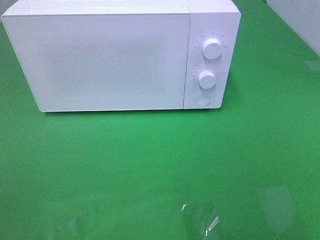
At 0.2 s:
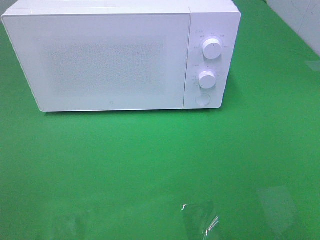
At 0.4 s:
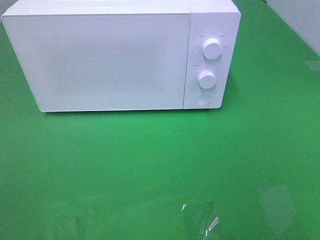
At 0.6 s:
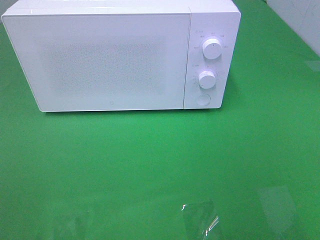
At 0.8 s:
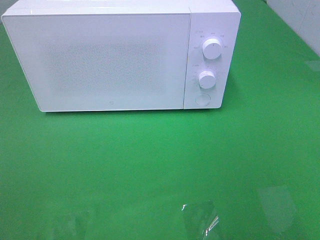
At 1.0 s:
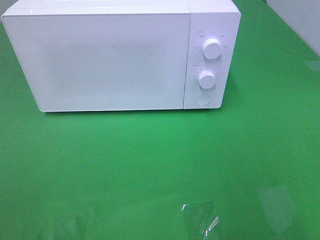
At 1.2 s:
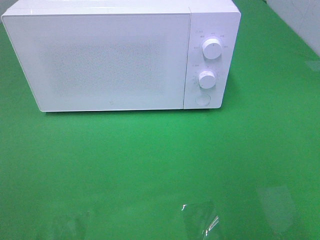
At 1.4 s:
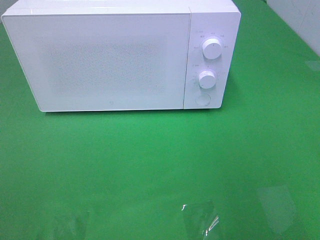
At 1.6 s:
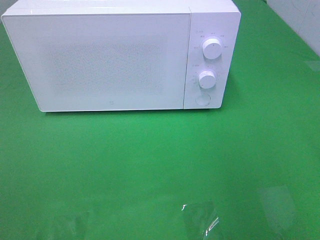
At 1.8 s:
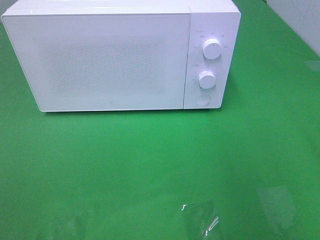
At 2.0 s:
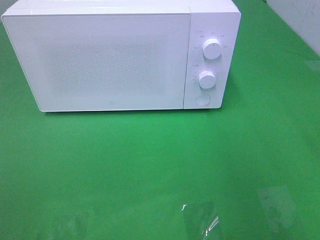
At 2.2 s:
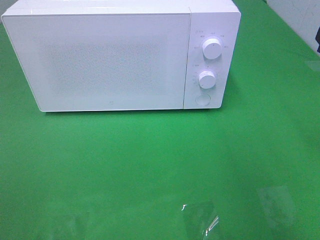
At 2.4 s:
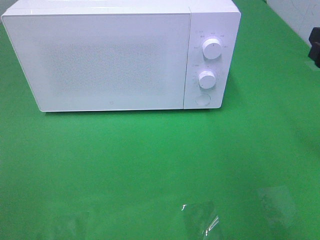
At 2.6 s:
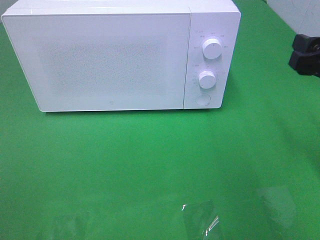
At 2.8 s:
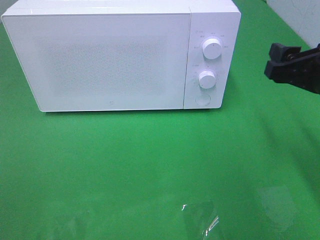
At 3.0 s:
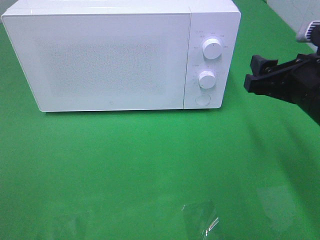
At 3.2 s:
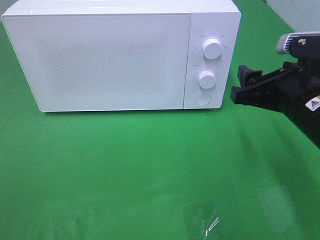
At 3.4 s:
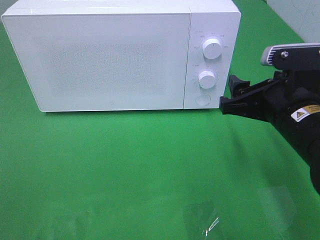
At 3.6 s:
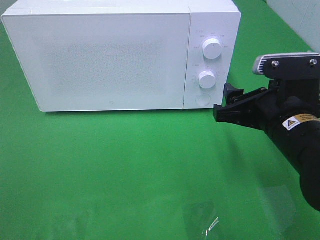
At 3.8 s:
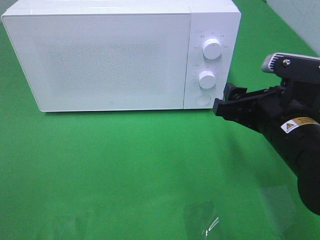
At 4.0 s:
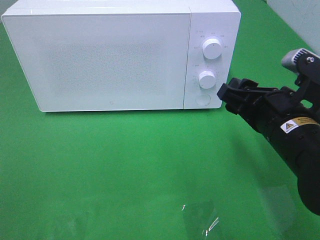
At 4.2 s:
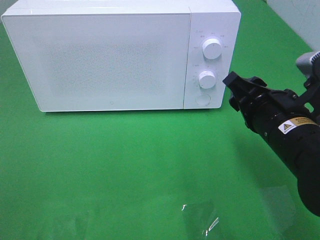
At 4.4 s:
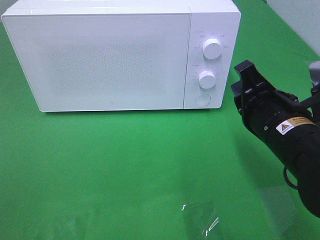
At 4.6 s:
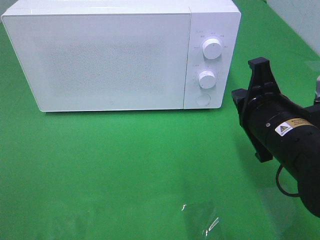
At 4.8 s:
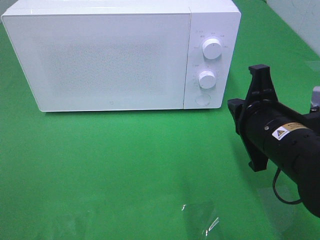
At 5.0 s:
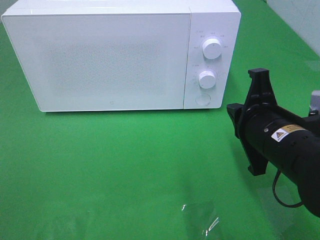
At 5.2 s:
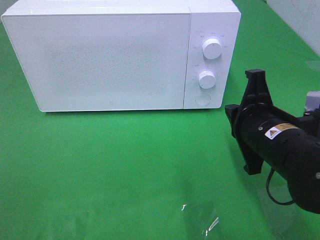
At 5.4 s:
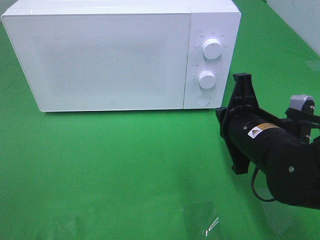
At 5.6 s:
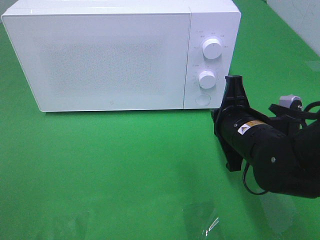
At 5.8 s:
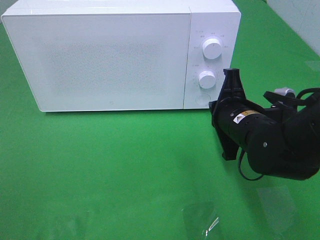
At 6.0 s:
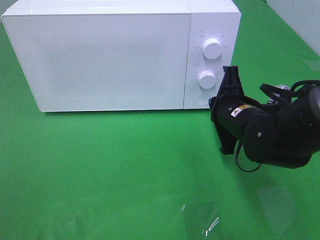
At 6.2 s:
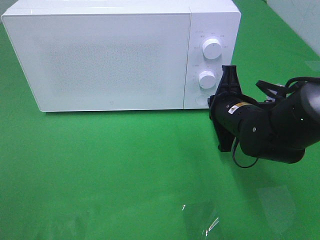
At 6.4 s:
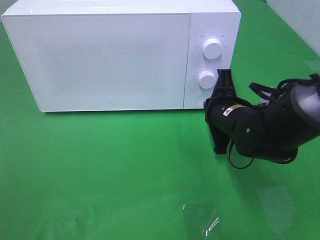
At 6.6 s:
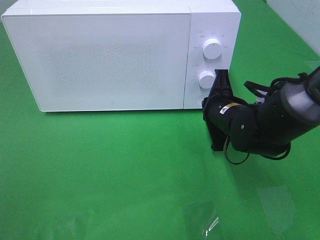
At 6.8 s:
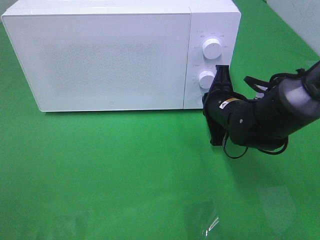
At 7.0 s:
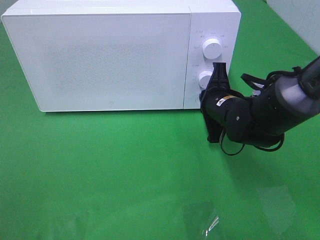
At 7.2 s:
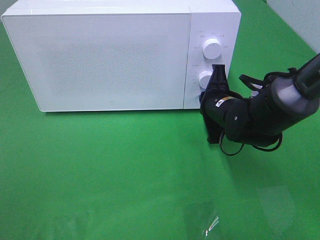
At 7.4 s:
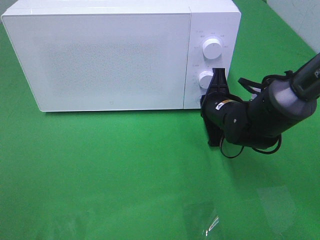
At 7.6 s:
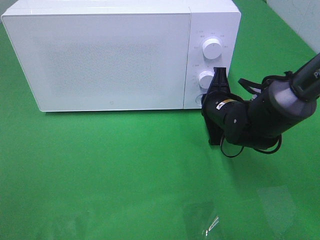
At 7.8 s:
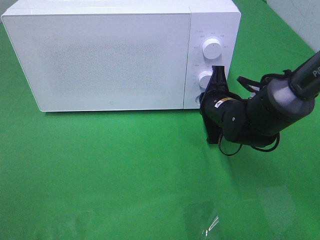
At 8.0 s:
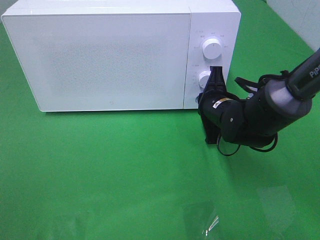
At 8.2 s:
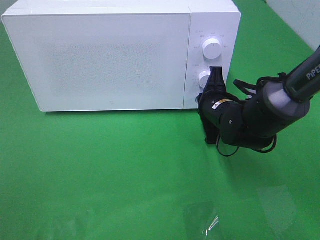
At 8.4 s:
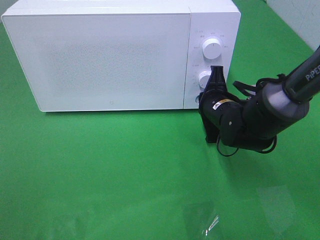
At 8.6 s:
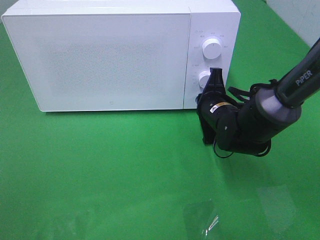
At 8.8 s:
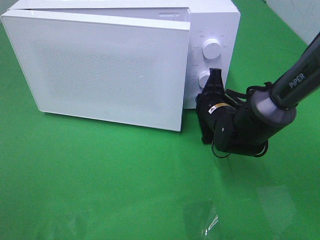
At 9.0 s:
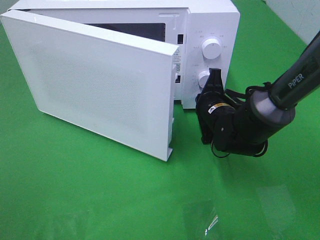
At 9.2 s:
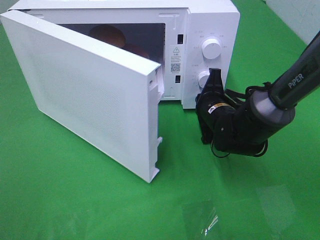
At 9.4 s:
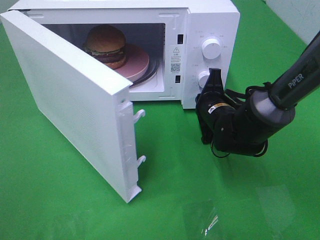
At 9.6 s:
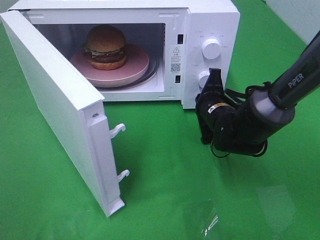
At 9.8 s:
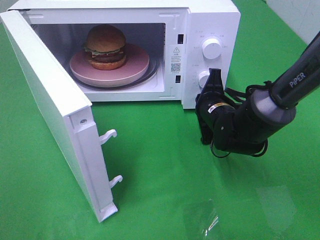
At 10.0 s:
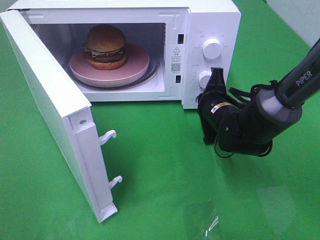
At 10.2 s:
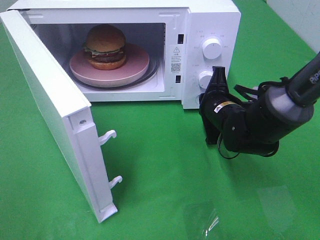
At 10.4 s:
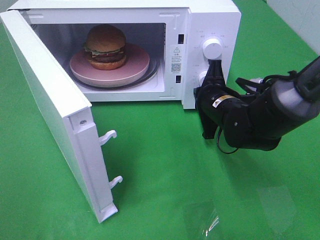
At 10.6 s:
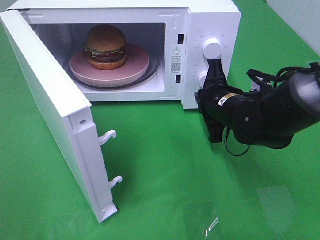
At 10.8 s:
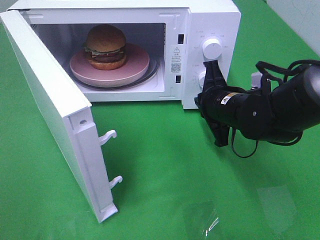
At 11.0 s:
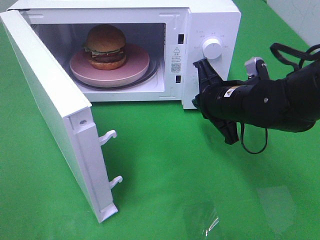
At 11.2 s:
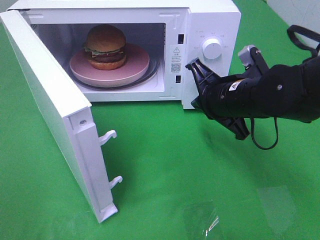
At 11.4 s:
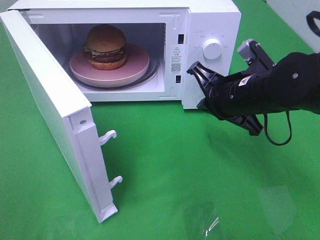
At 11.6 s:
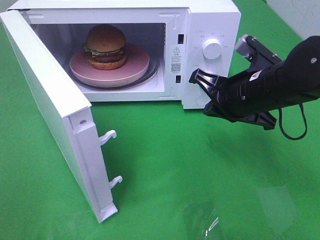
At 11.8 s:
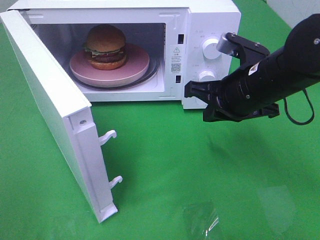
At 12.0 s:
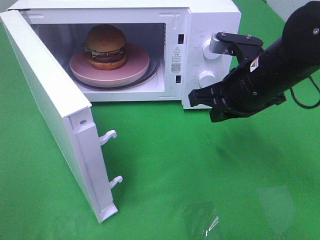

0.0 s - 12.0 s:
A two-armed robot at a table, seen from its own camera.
Task of the whole recording: Heat the burger.
Step, 0.0 s - 10.2 s: Right hand: press the switch.
1.6 s - 3.0 s: The right gripper is displaced downward, to the left and forward by some 15 cm.
3.0 s - 4.4 s: The right gripper goes roughly 5 cm to the left, and closes.
4.4 s - 6.0 s: The right gripper moves forward and downward, roughly 10 cm.
6.0 s - 7.6 s: The right gripper goes approximately 5 cm forward.
7.6 s - 9.0 s: There are only small adjustments of the grippers.
10.4 s - 12.0 s: The right gripper is displaced upward by some 10 cm.

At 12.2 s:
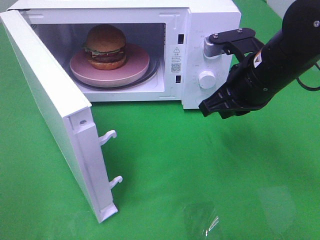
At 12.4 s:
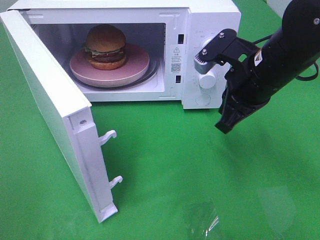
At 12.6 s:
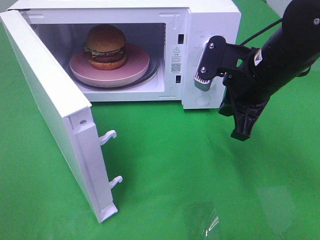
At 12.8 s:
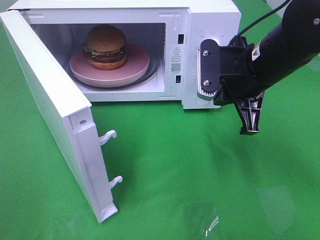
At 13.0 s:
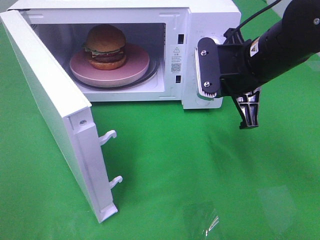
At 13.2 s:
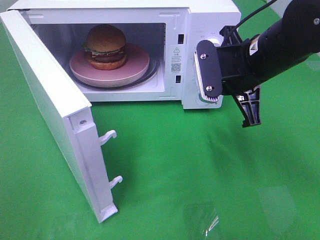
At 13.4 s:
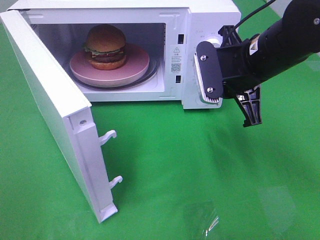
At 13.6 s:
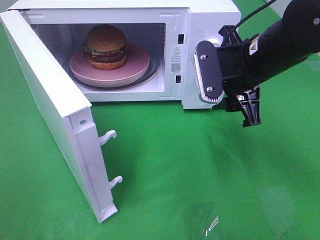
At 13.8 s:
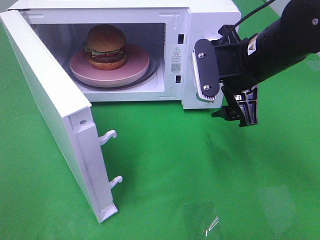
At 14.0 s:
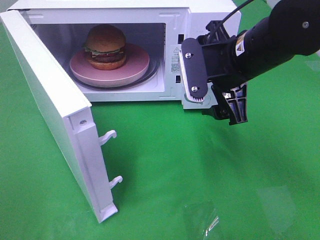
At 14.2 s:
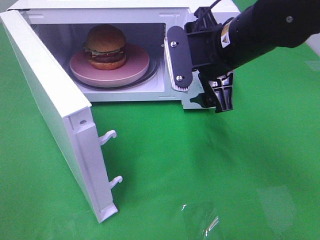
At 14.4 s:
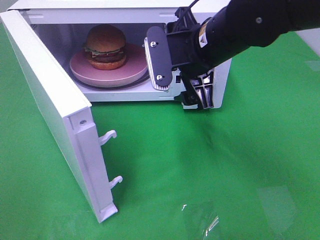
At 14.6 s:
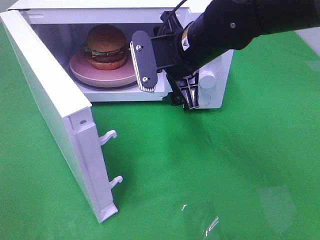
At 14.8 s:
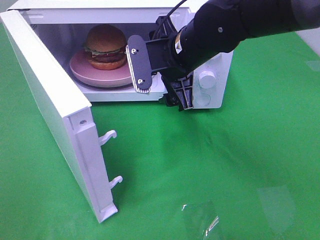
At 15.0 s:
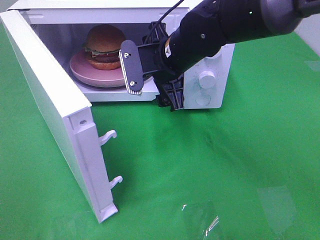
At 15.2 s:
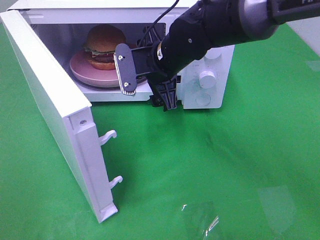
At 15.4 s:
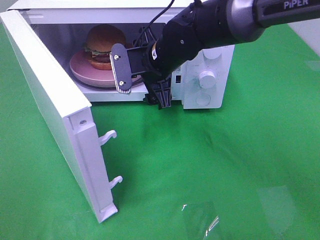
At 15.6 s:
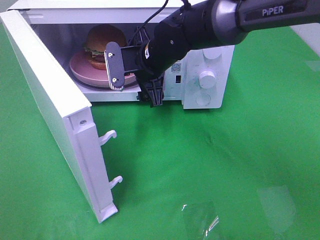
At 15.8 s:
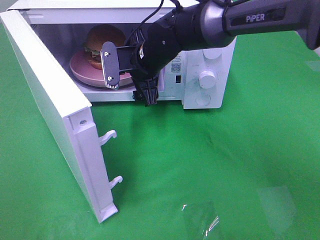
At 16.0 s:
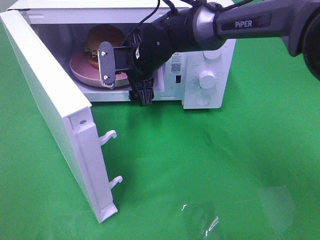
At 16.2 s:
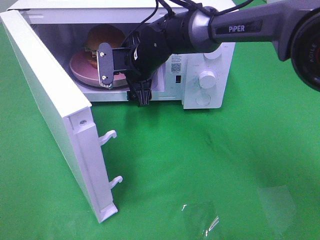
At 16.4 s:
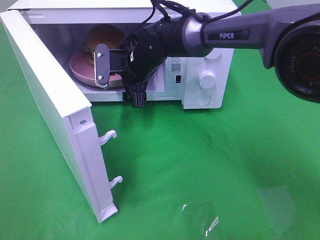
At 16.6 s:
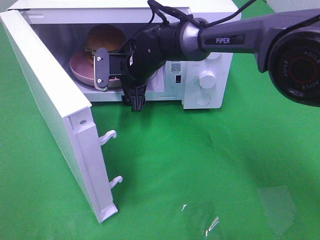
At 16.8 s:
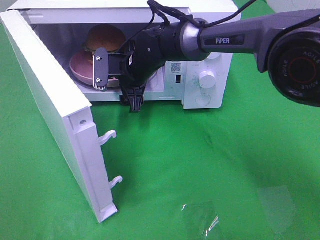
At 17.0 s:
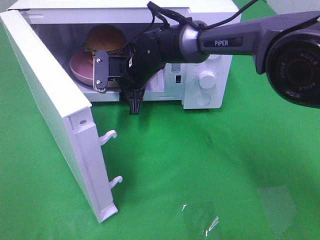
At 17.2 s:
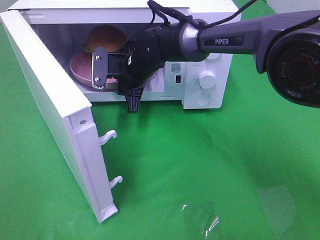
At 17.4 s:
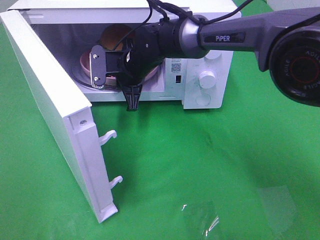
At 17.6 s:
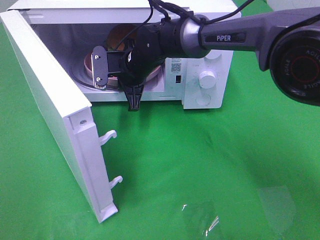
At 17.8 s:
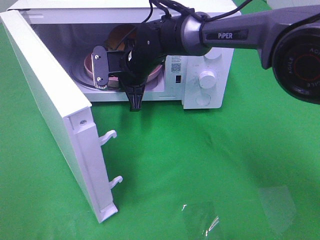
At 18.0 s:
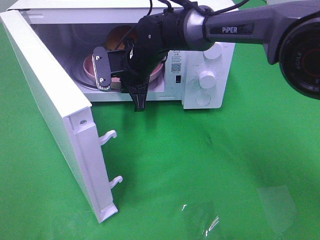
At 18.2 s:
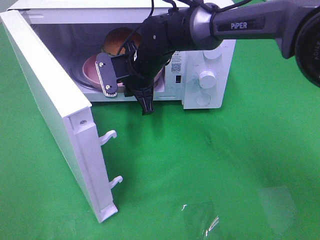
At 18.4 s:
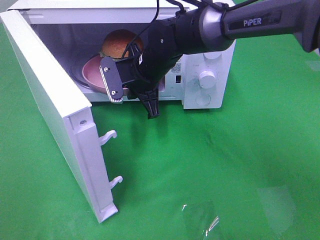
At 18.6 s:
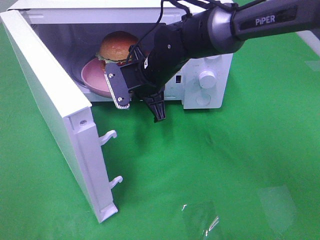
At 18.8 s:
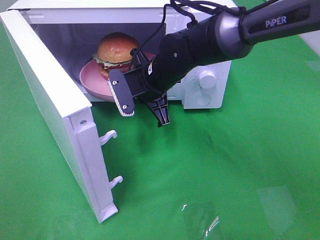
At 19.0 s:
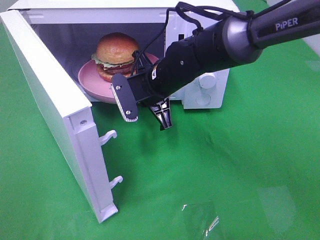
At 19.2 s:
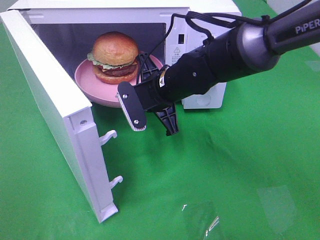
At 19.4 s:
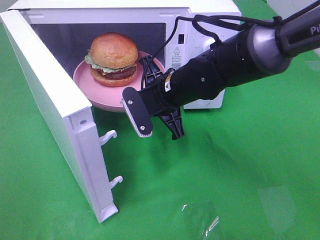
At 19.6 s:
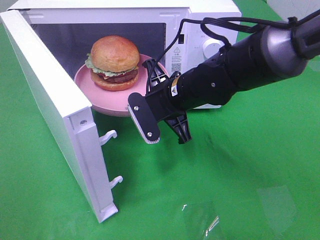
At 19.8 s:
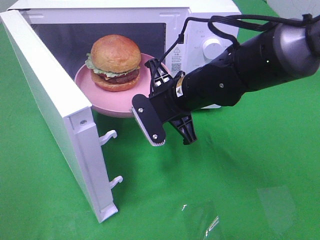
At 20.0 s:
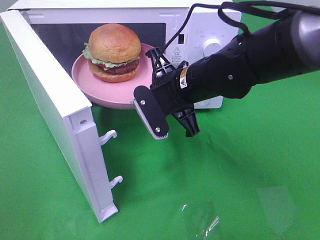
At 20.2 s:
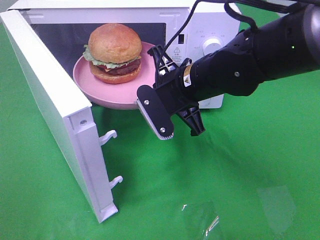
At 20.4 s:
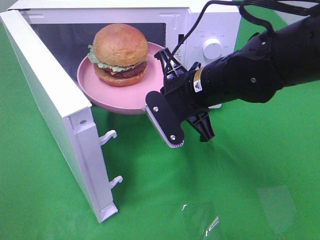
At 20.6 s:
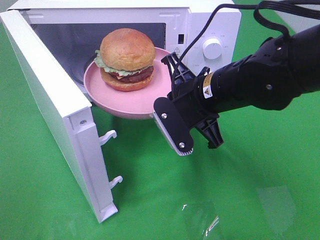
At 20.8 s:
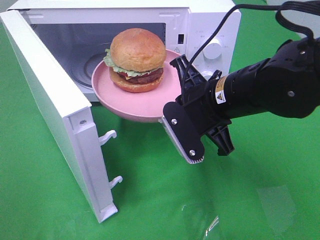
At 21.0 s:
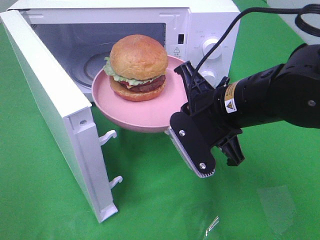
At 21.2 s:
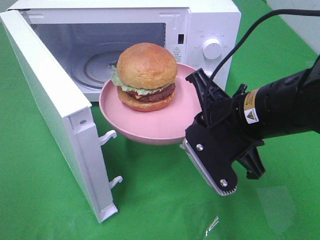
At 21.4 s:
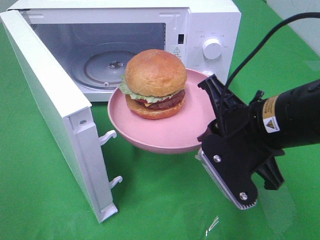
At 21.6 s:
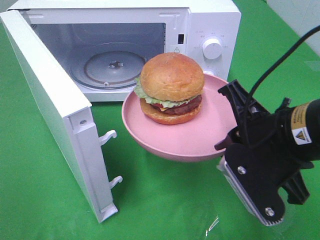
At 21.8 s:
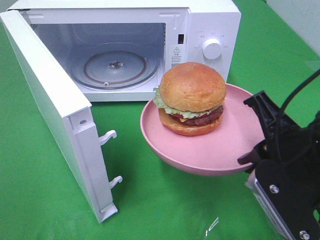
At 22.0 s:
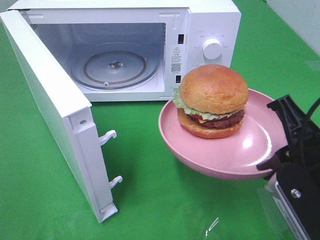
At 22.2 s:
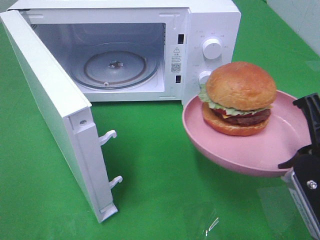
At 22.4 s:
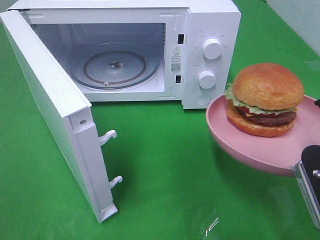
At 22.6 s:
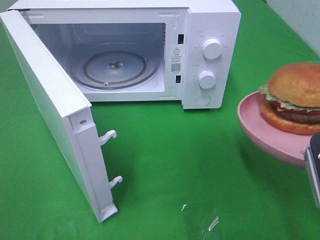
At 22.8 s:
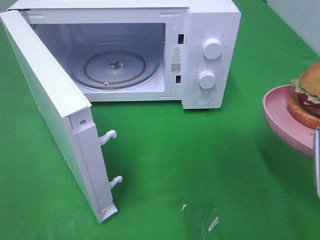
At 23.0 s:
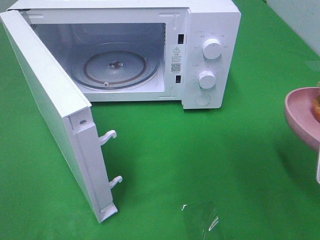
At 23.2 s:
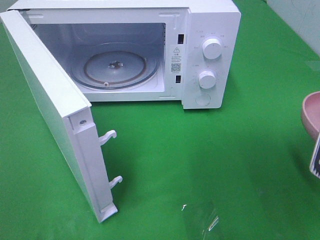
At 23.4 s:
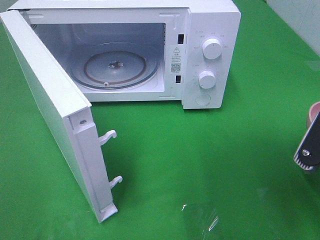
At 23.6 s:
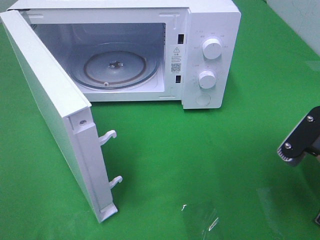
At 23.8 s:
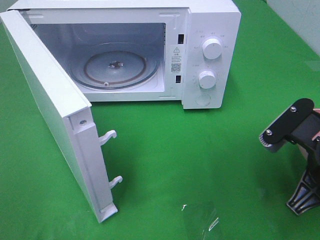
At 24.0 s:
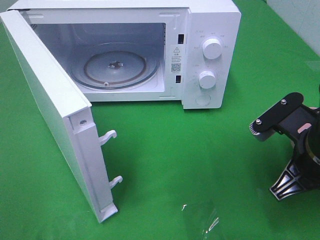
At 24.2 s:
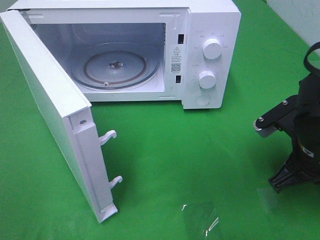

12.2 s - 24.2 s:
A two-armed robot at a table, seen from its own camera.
Task of the whole recording: Heat the burger.
Step, 12.2 s - 17.4 s: Right hand: grab the plate with the hamburger.
12.2 s - 13.8 s: The right gripper opens up.
13.8 s - 15.2 s: The right gripper is displaced to the left and forward by approximately 15 cm.
15.2 s - 16.6 s: The right gripper shifts some 10 cm forward, downward and to the left.
16.6 s - 18.2 s: The right gripper closes.
18.2 s - 19.8 s: The right gripper goes roughly 10 cm backward and to the right.
19.8 s - 21.2 s: The right gripper goes about 10 cm backward and to the right.
21.2 s - 22.6 s: The right gripper heads to the right and backward, covering about 15 cm.
22.6 s - 24.2 s: The right gripper is displaced forward and downward by roughly 10 cm.
